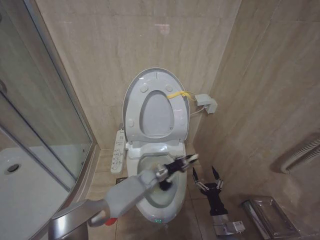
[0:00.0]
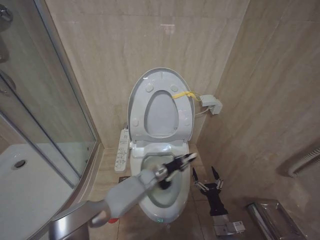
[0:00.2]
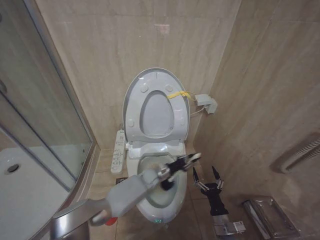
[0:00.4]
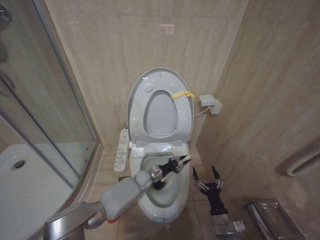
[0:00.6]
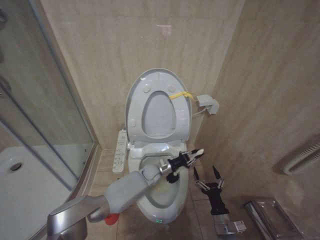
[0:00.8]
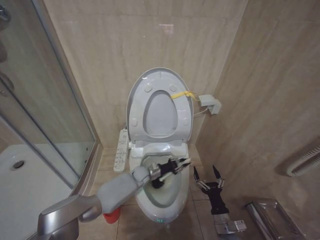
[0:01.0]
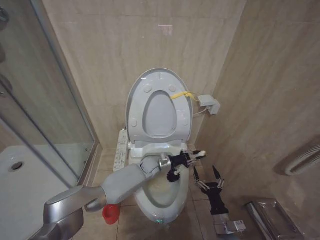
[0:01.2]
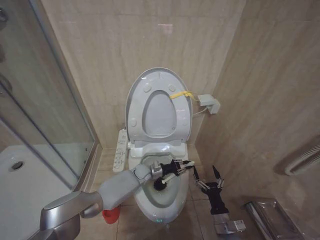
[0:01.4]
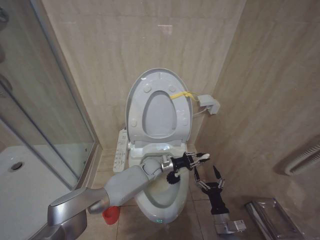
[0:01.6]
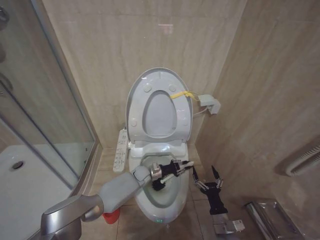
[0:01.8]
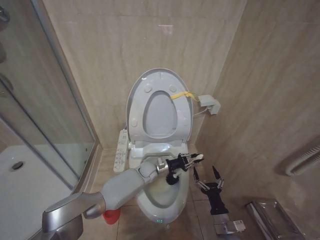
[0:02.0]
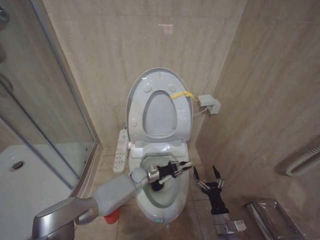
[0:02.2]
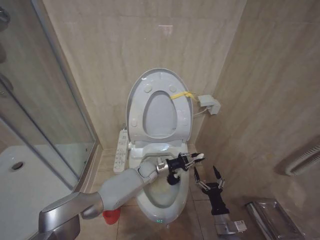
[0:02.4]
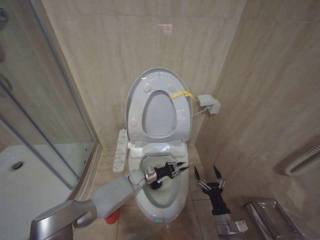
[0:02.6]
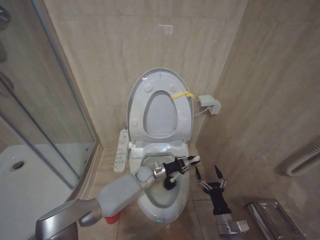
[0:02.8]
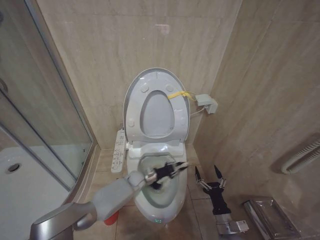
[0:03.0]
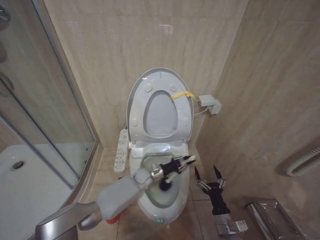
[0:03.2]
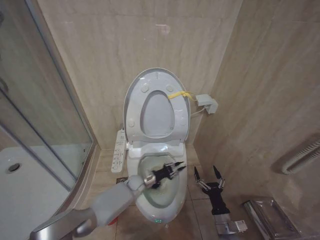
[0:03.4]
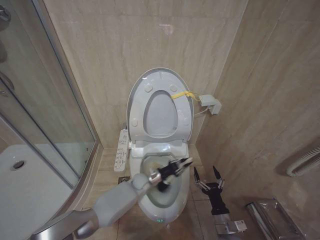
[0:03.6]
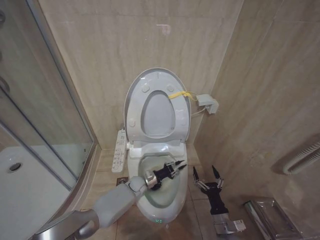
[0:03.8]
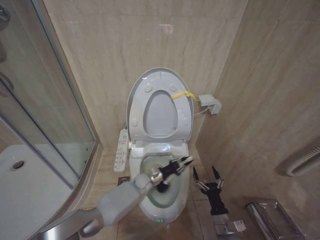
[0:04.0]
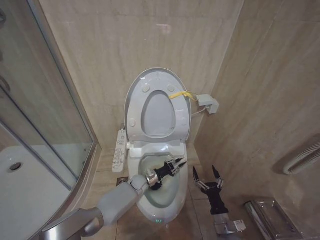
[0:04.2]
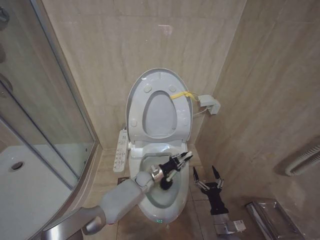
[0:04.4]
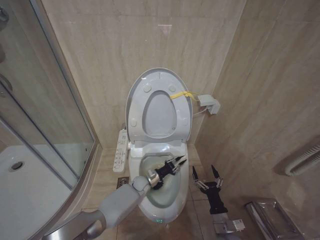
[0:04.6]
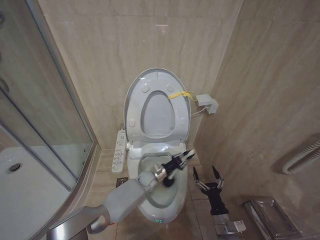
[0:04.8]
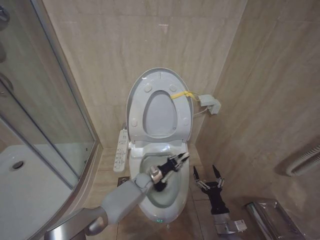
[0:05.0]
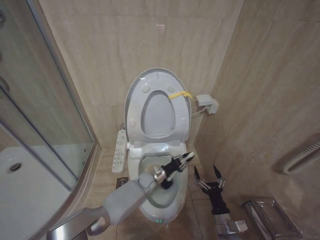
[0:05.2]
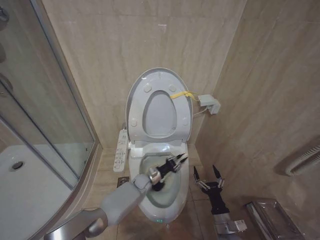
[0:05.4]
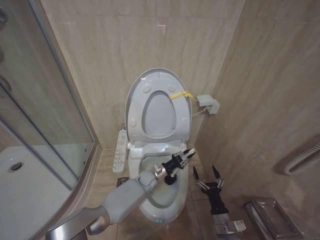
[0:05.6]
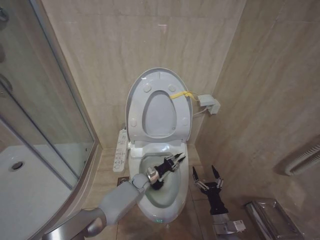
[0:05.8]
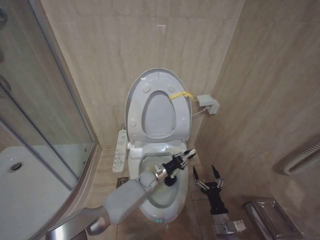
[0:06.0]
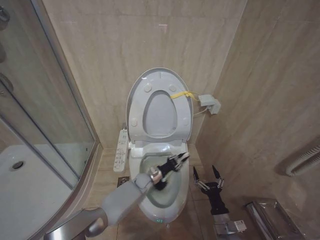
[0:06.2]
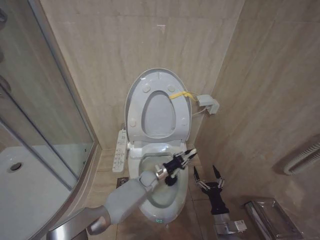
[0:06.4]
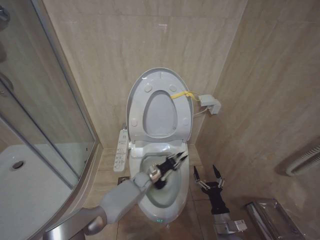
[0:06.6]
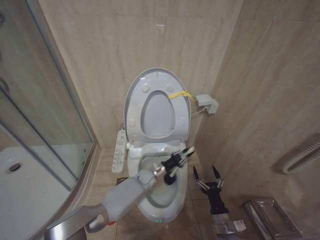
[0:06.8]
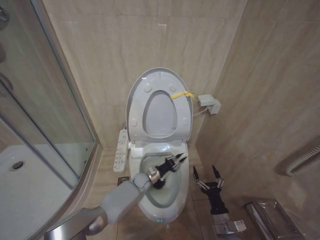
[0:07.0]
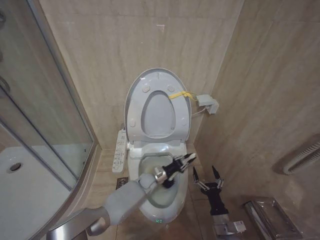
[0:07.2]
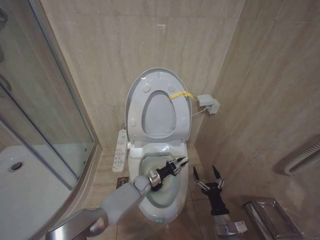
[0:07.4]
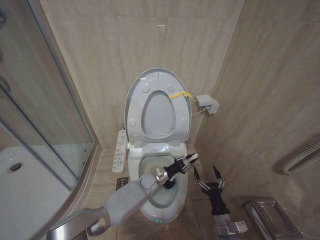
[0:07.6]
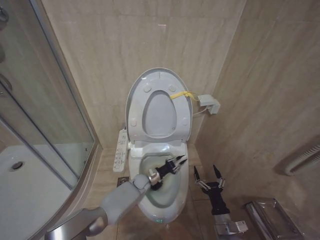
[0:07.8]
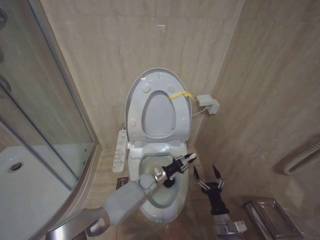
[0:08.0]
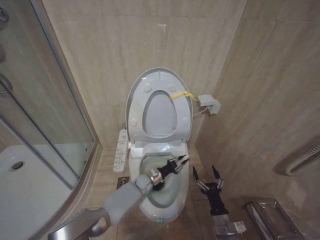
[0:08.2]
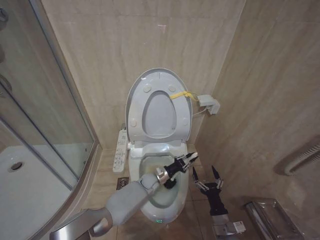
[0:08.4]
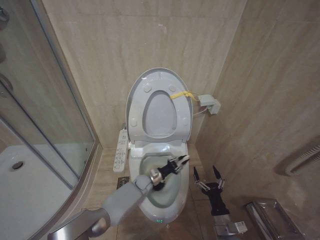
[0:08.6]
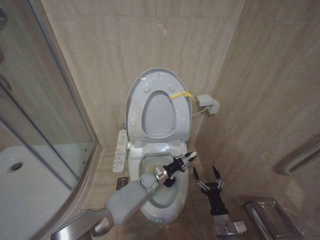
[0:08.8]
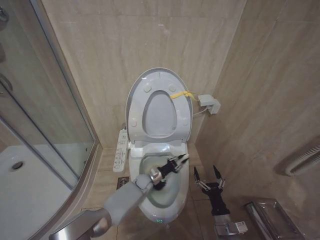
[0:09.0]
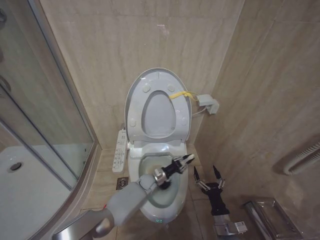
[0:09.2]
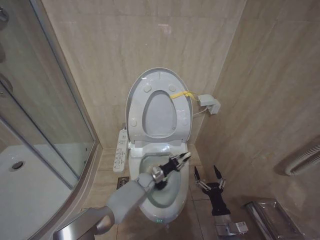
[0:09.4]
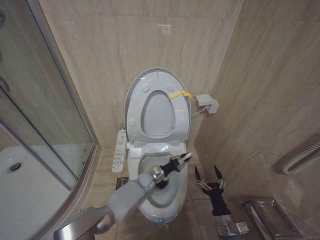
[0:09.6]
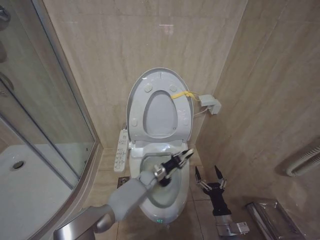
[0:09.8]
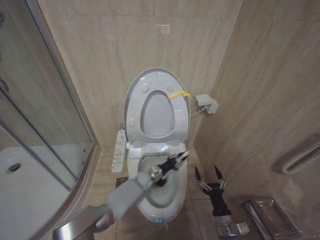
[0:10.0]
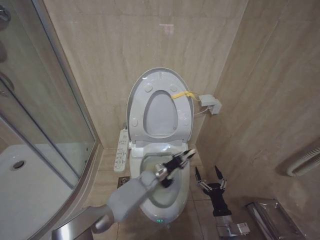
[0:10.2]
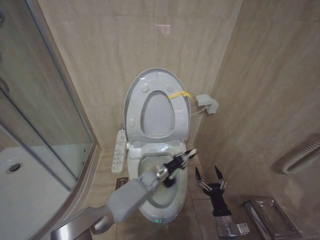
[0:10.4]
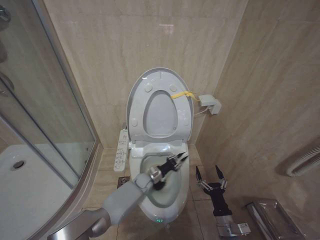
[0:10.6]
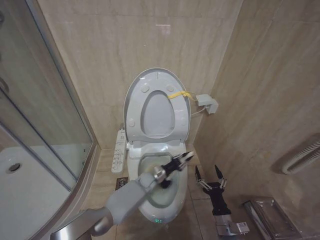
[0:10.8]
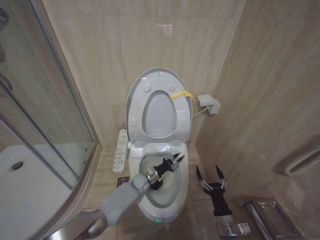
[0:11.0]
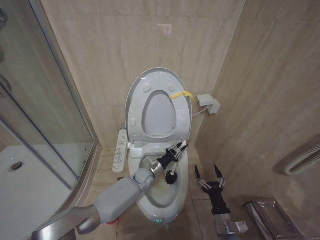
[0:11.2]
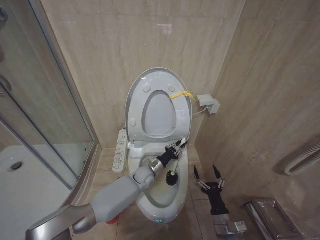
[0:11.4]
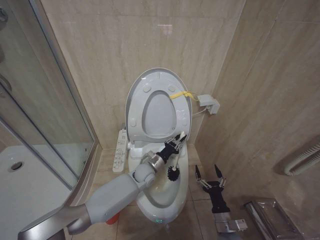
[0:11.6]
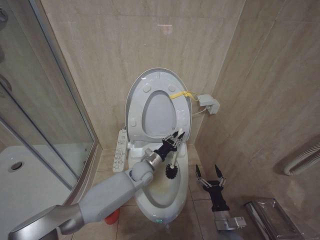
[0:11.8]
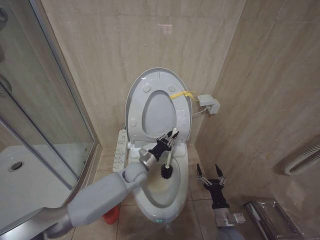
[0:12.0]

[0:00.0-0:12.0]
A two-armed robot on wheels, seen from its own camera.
Task of the whole recording: Open the toilet lid, clean the toilet bowl with a toilet brush, close the toilet lid, and flush.
0:00.0 to 0:01.6: The left gripper goes up and down, some 10 cm each way, reversing 5 times.
0:01.6 to 0:03.0: The left gripper travels to the left by about 5 cm.
0:03.0 to 0:04.4: There are only small adjustments of the grippers.
0:04.4 to 0:06.0: The left gripper swings left and right, approximately 5 cm each way, with 2 reversals.
0:06.0 to 0:07.6: The grippers make only small movements.
0:07.6 to 0:09.0: The grippers stay close to where they were, moving slightly.
0:09.0 to 0:10.4: The left gripper shifts approximately 5 cm upward.
0:10.4 to 0:12.0: The left gripper moves up and down over approximately 15 cm, changing direction 3 times.

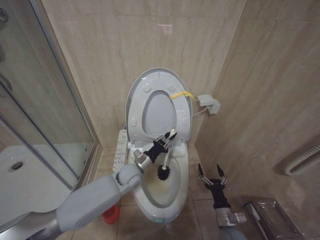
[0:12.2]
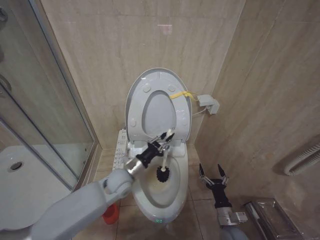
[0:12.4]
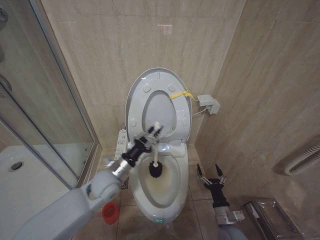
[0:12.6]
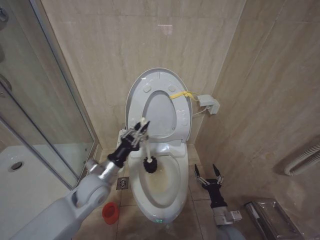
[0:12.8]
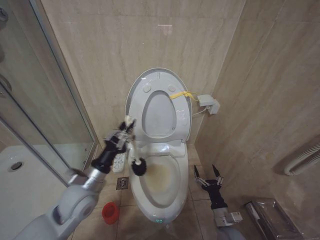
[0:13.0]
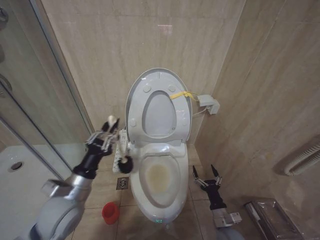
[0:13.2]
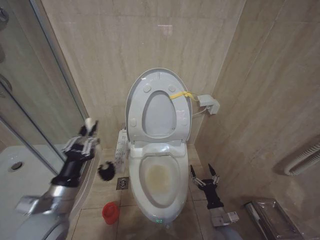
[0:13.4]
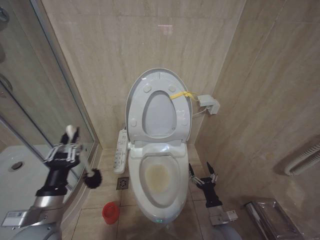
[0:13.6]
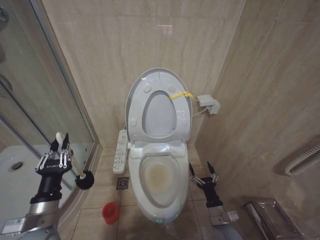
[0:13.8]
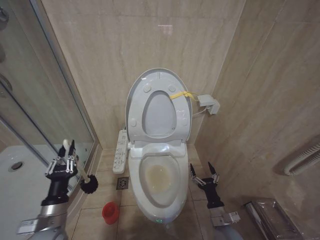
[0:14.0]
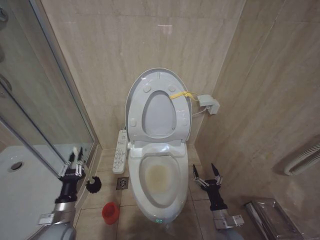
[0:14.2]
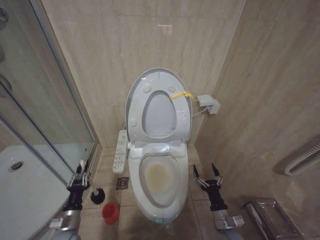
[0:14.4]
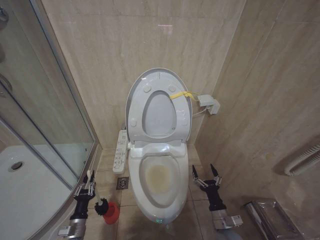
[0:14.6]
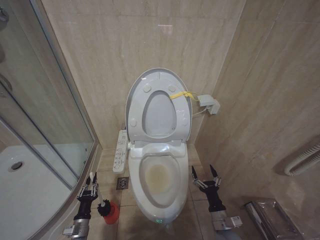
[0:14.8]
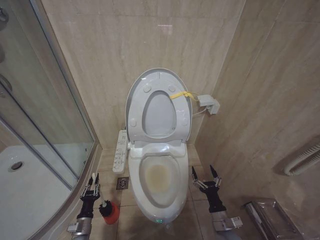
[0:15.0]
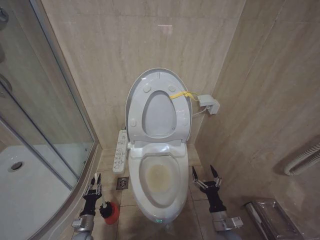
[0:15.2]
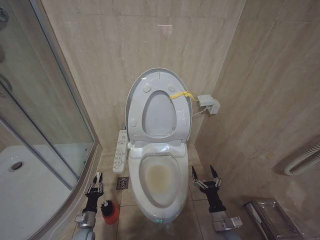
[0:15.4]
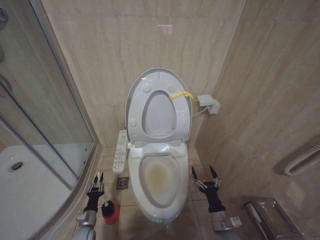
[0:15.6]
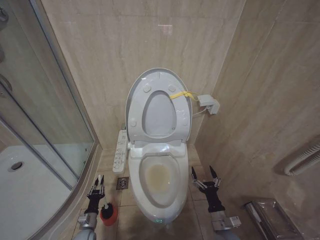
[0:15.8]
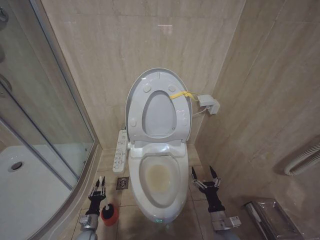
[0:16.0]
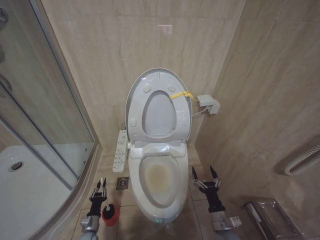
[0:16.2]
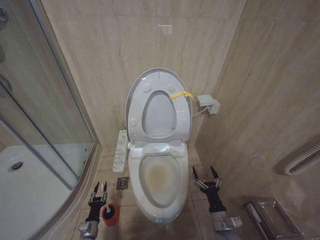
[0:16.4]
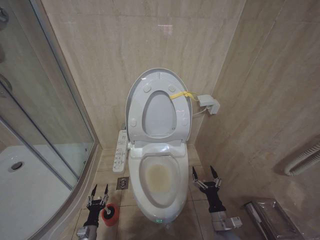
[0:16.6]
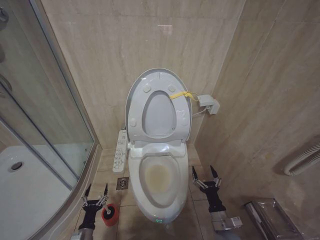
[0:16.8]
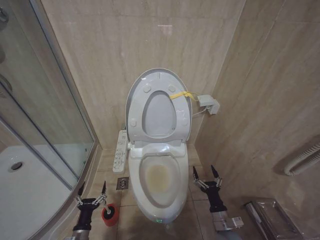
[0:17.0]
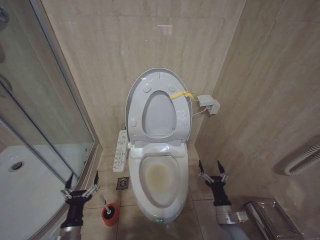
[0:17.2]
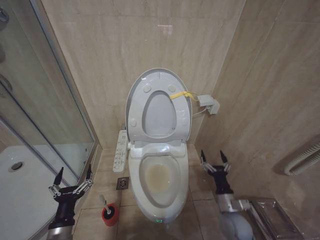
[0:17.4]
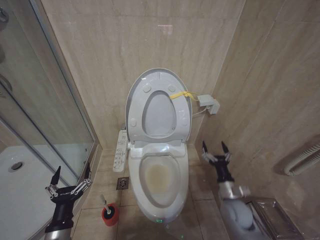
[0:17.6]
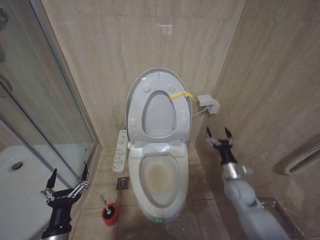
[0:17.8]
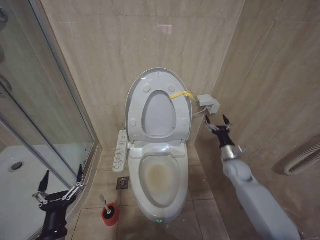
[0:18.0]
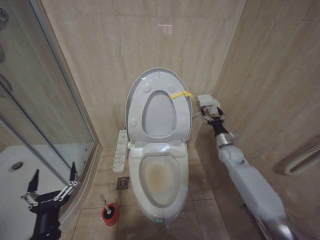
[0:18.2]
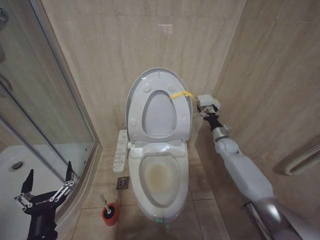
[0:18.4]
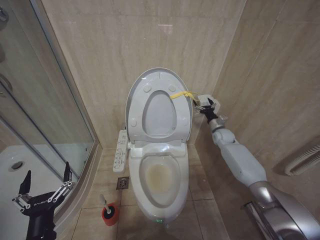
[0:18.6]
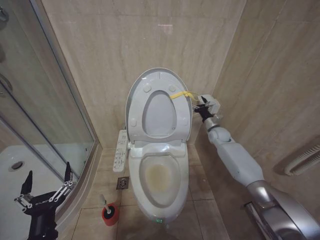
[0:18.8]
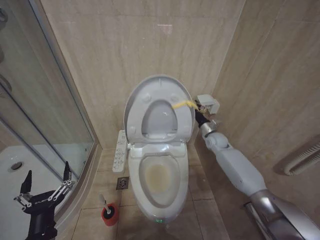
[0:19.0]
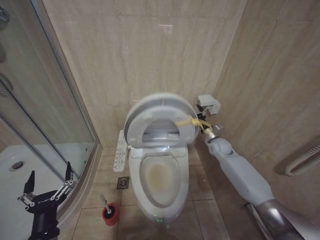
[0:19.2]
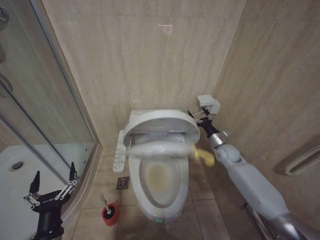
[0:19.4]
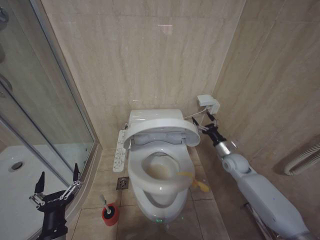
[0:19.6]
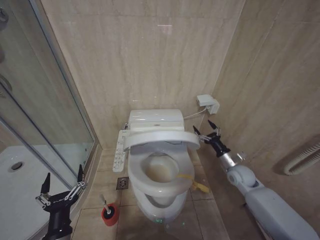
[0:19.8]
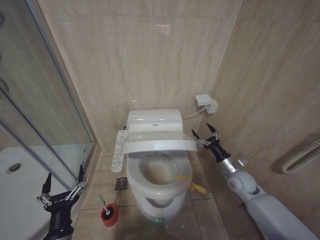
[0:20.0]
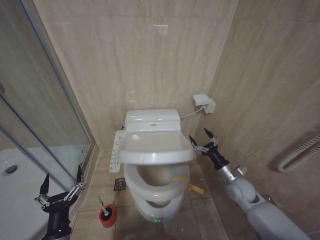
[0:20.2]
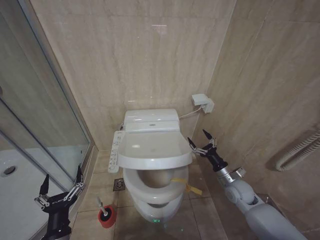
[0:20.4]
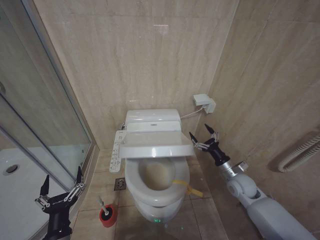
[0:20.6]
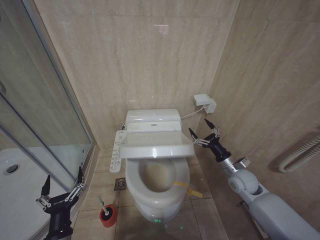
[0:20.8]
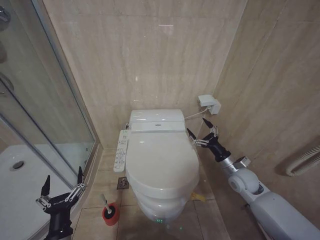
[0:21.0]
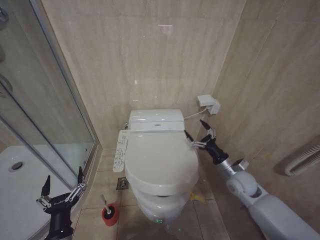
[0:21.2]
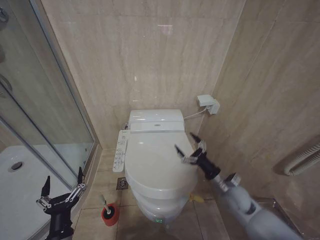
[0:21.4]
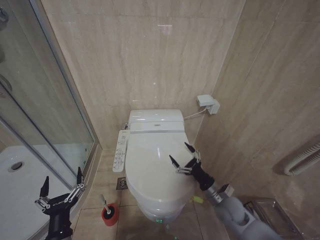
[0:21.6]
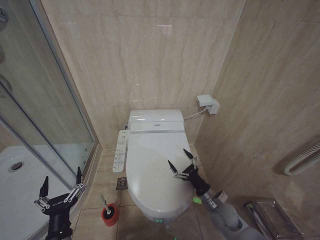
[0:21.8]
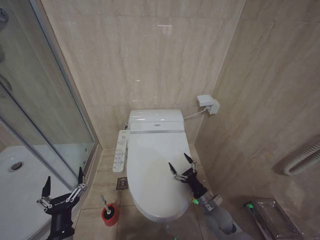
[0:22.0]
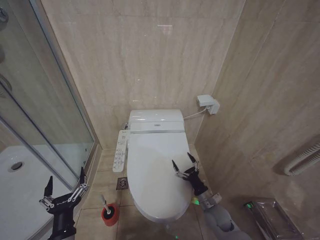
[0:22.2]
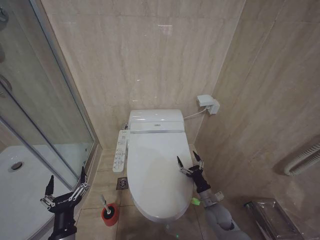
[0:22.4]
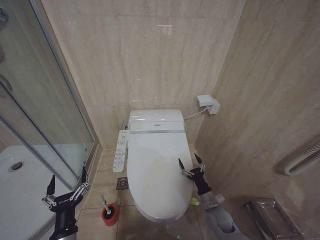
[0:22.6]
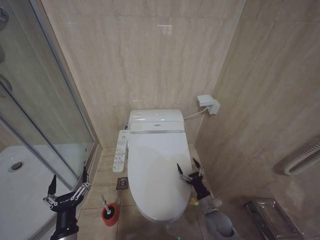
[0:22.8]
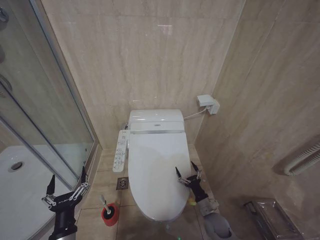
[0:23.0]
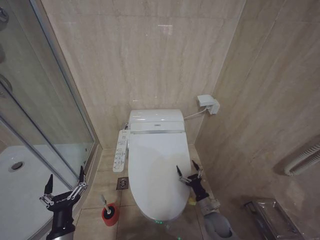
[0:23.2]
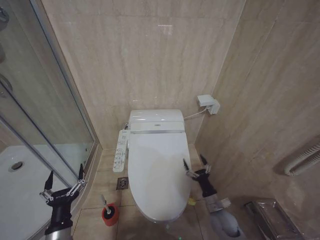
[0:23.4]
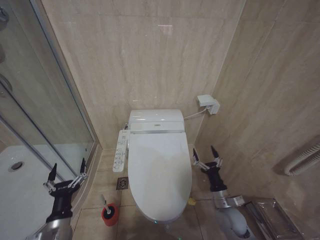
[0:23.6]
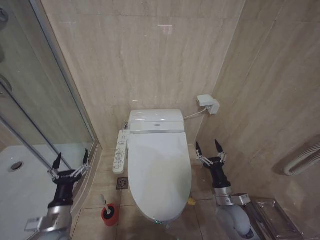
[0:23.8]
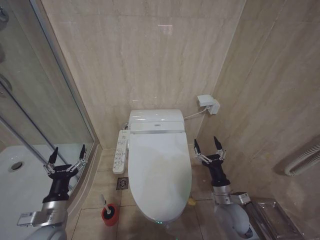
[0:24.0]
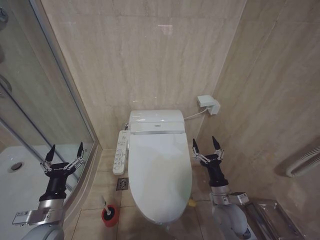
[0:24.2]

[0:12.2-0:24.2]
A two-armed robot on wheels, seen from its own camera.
Task of the whole recording: Open the toilet lid, clean the toilet bowl with a toilet brush, close the toilet lid, and flush.
0:12.2 to 0:13.8: The left gripper moves backward and to the left, roughly 30 cm.
0:13.8 to 0:15.2: The left gripper heads downward, covering approximately 30 cm.
0:15.2 to 0:16.6: There are only small adjustments of the grippers.
0:16.6 to 0:18.2: The left gripper travels upward by some 30 cm, and opens. Meanwhile the right gripper goes about 30 cm forward, upward and to the right.
0:18.2 to 0:19.8: The right gripper reaches about 15 cm forward, then returns.
0:19.8 to 0:21.2: The right gripper shifts about 5 cm backward.
0:21.2 to 0:22.6: The right gripper heads downward, covering some 15 cm.
0:22.6 to 0:24.2: The left gripper heads forward and to the left, covering roughly 10 cm. The right gripper travels upward by about 10 cm.
